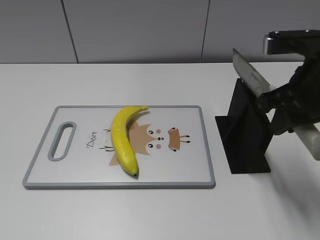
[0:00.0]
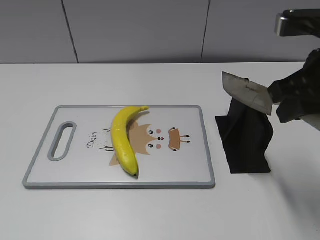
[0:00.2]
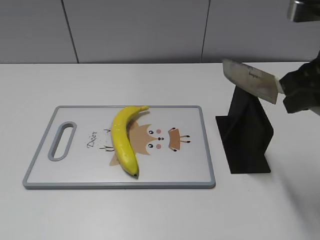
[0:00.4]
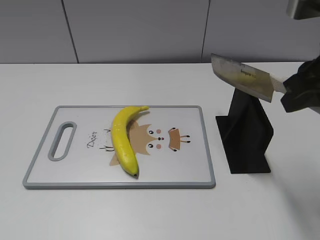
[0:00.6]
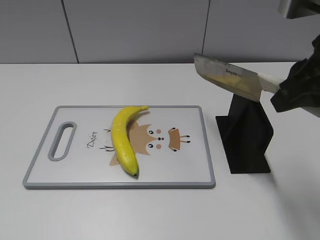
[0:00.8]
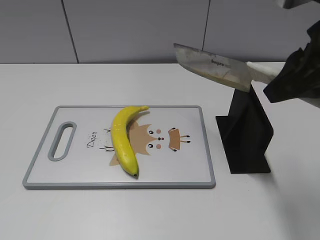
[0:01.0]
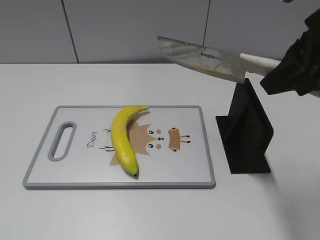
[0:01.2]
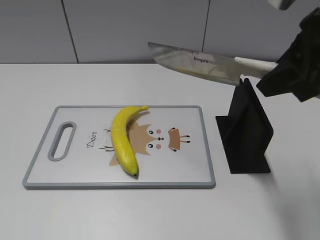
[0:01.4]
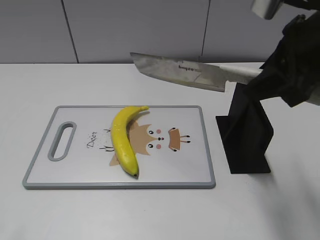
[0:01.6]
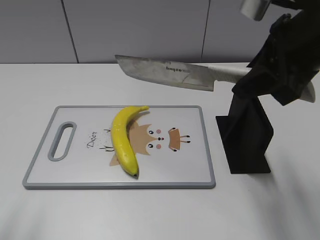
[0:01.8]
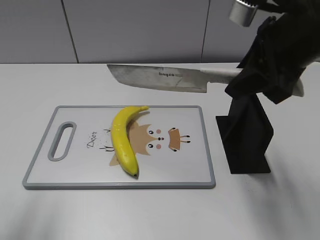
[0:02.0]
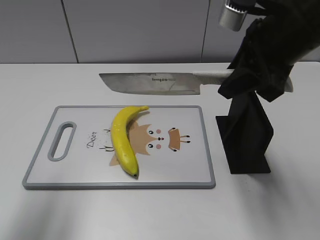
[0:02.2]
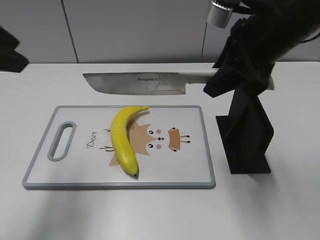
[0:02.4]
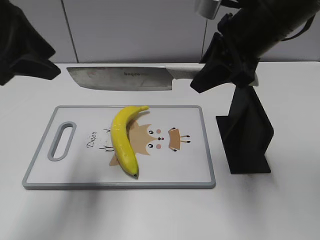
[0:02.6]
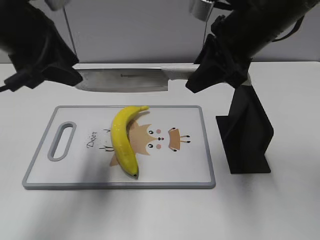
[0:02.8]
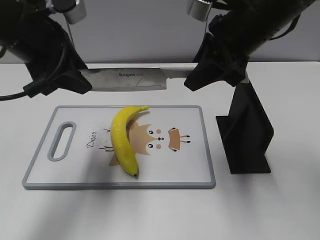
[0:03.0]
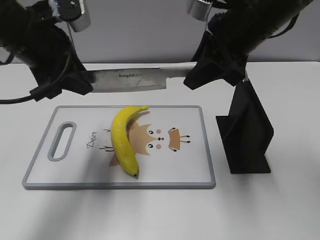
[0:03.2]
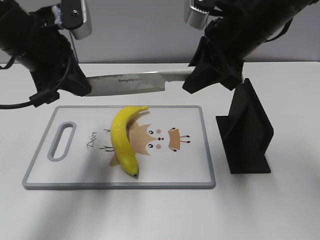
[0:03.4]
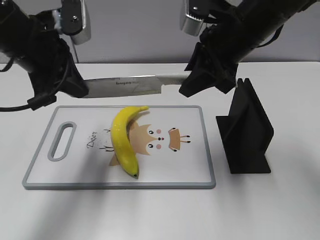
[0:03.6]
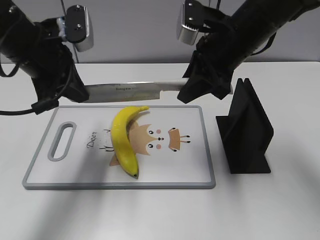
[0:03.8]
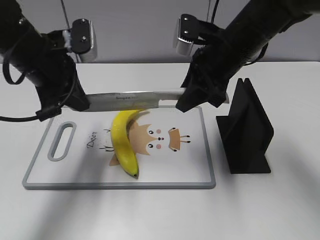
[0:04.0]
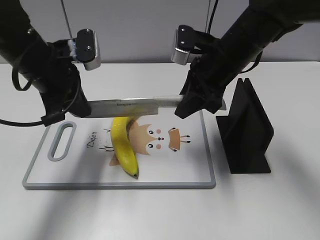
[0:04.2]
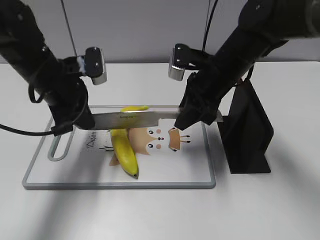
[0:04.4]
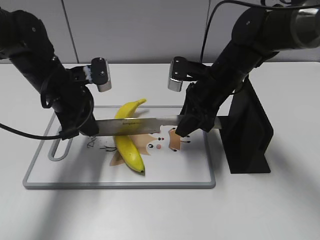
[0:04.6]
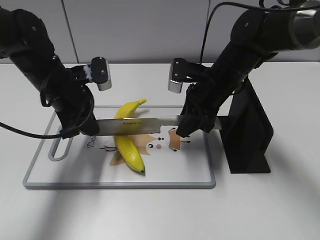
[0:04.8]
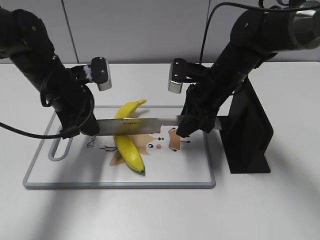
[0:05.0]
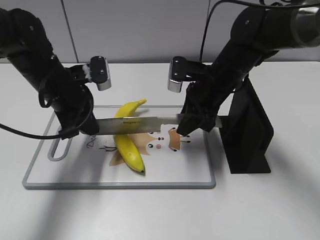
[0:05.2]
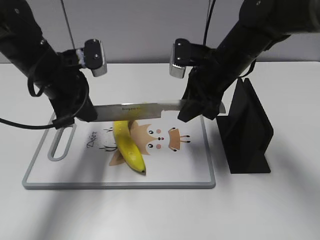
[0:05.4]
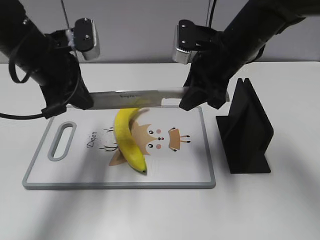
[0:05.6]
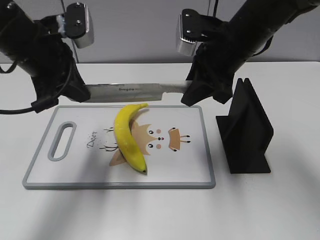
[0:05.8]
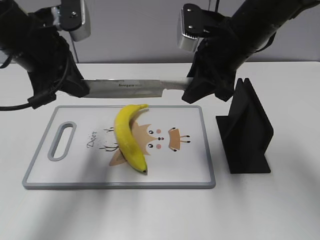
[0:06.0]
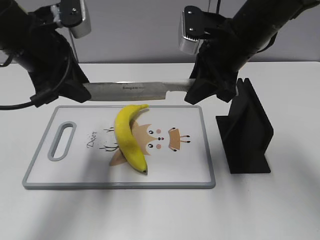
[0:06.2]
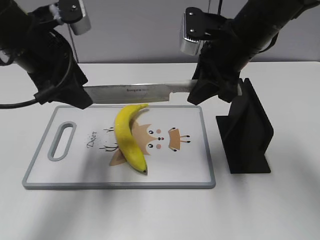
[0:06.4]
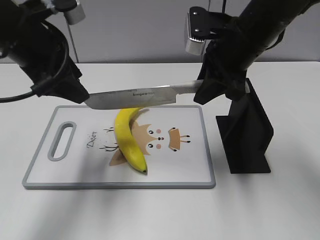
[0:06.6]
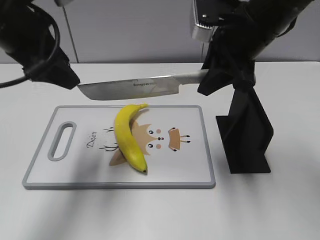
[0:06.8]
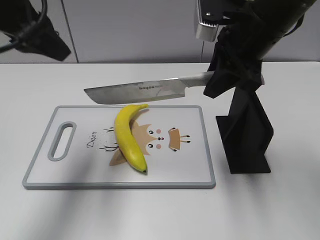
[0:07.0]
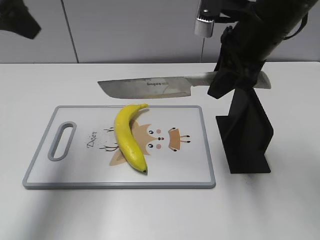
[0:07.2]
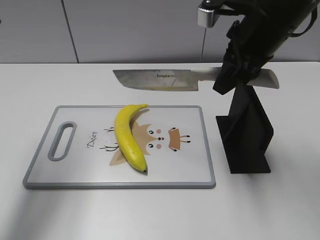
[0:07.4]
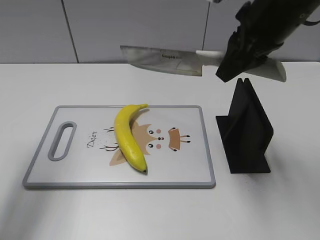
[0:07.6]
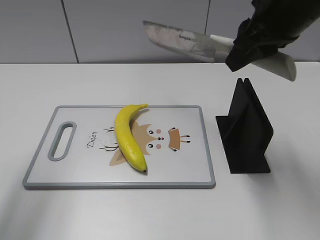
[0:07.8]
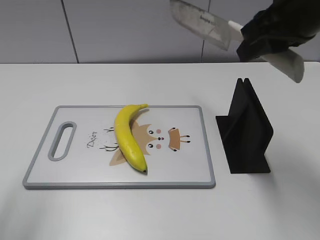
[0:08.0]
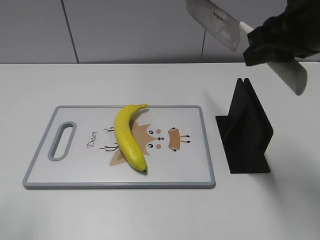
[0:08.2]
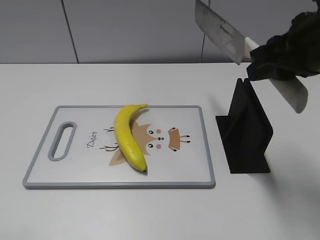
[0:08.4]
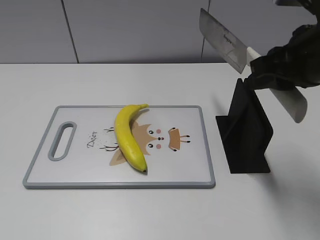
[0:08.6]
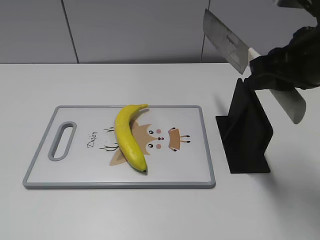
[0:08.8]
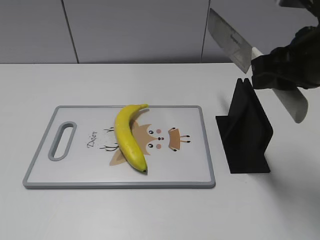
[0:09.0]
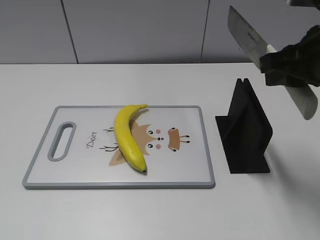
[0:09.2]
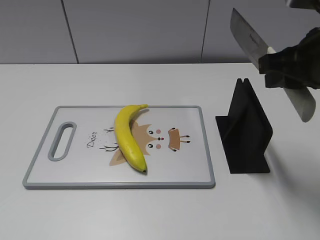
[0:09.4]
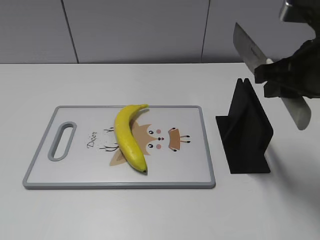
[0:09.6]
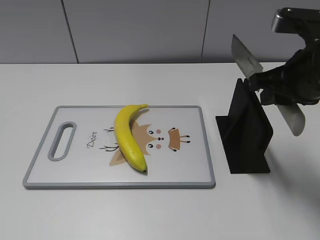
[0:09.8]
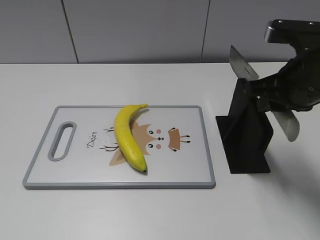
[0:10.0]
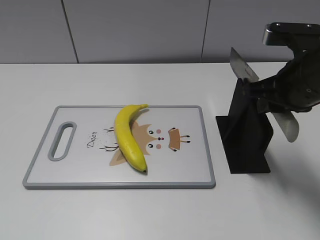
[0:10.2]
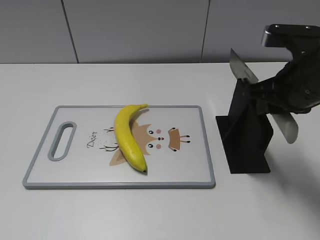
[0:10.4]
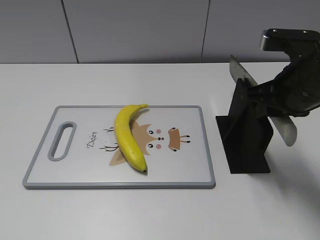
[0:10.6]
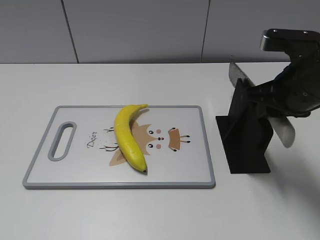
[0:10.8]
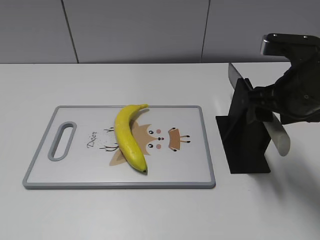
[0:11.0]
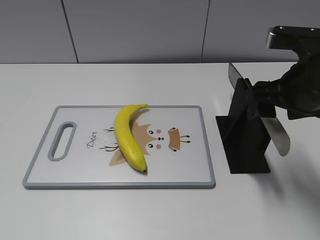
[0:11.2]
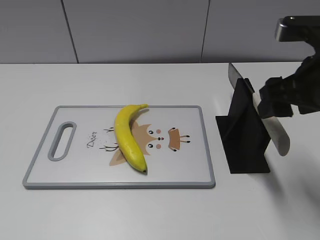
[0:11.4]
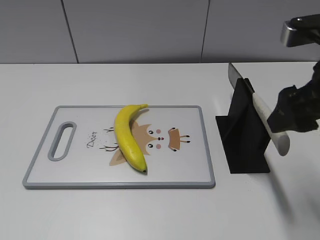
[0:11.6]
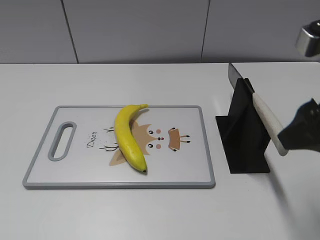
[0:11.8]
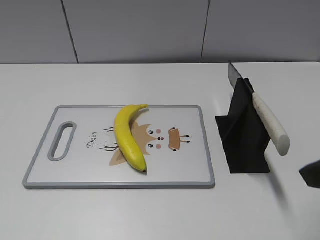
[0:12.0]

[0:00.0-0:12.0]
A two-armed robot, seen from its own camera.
Task of the whole recording: cut plastic banana.
Step, 1.0 to 5.4 s: Lift the knife with your right hand.
Step, 5.6 to 7.0 s: Cut the banana with your right hand.
Step, 7.2 to 8.8 s: Secure the blade with your left hand.
0.0 to 1.6 s: The left gripper moves forward, some 5 cm. Meanwhile the right gripper travels upward by some 5 cm.
1.6 to 3.0 s: The left gripper shifts some 30 cm forward and to the right; the right gripper heads forward and to the left, covering some 10 cm.
3.0 to 4.4 s: Both grippers travel together downward, roughly 10 cm. The left gripper closes up.
4.4 to 6.0 s: Both grippers move upward, about 5 cm.
6.0 to 7.6 s: The left gripper shifts about 20 cm upward, to the left and backward, and opens. The right gripper is displaced upward by roughly 5 cm.
7.6 to 9.0 s: The left gripper moves backward and downward, approximately 30 cm; the right gripper shifts approximately 5 cm backward.
9.0 to 10.4 s: The right gripper is displaced downward by about 5 cm.
10.4 to 12.0 s: The right gripper is displaced backward by roughly 10 cm, and opens.

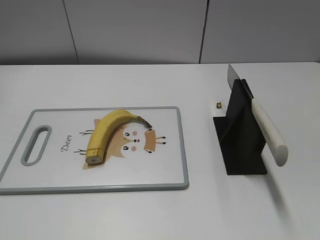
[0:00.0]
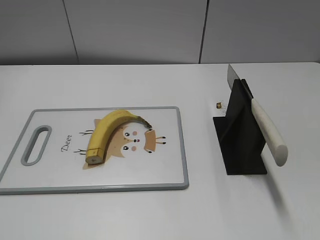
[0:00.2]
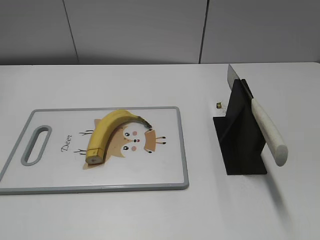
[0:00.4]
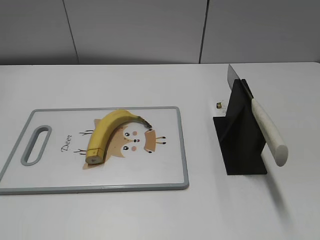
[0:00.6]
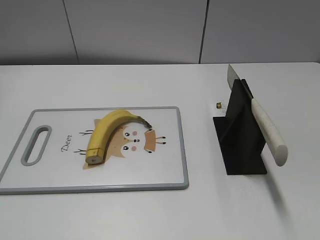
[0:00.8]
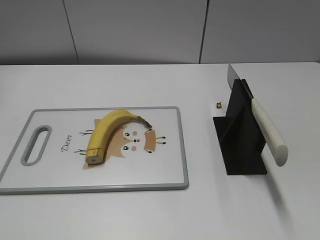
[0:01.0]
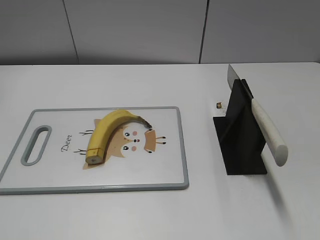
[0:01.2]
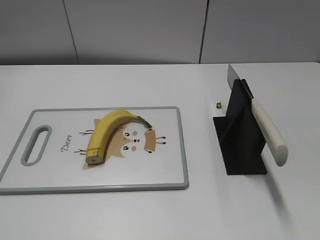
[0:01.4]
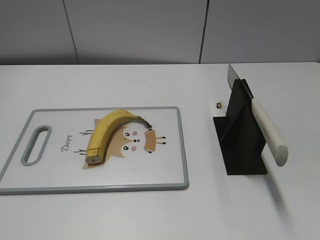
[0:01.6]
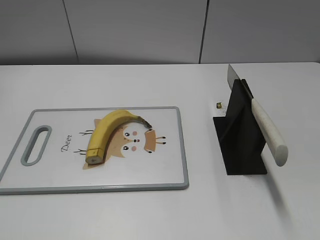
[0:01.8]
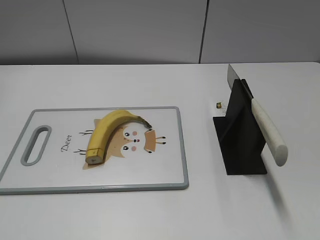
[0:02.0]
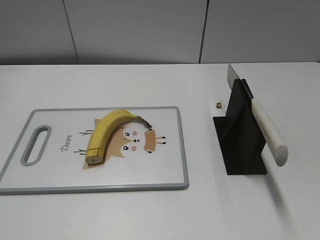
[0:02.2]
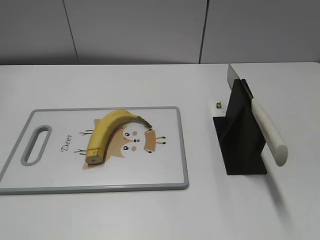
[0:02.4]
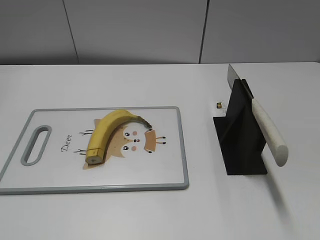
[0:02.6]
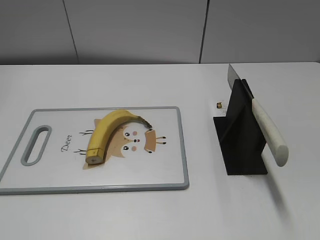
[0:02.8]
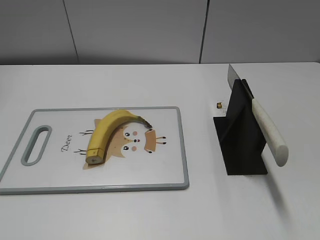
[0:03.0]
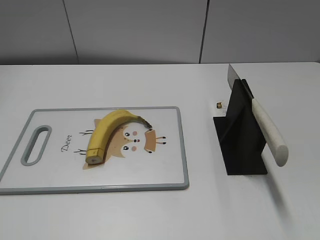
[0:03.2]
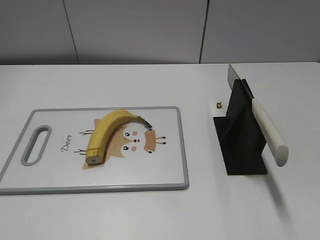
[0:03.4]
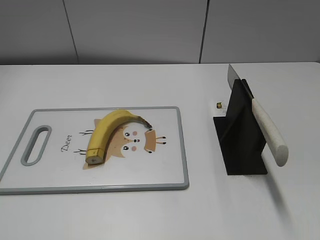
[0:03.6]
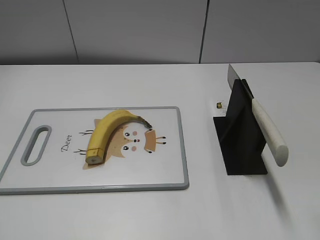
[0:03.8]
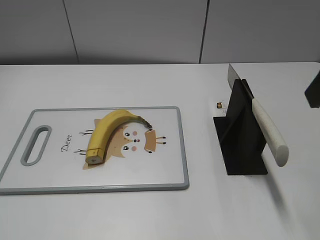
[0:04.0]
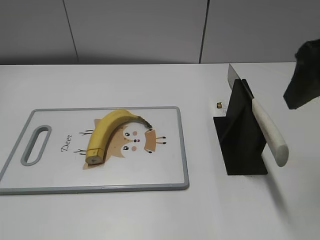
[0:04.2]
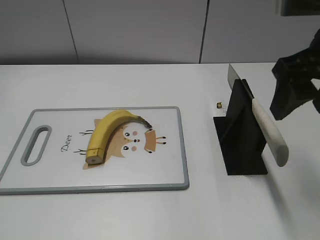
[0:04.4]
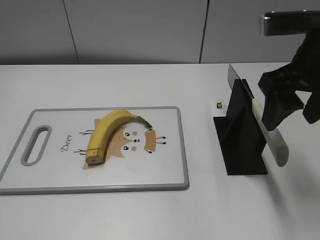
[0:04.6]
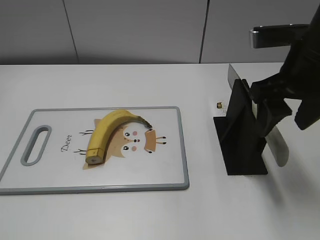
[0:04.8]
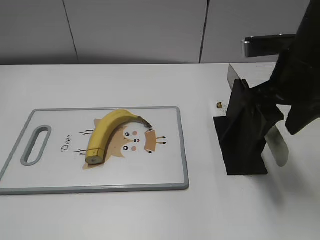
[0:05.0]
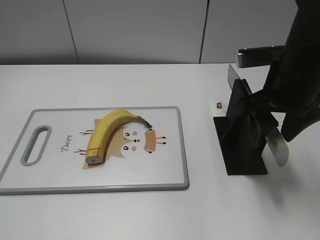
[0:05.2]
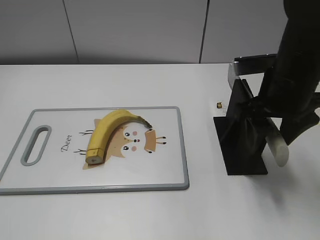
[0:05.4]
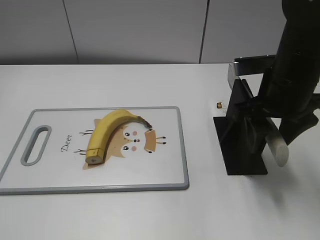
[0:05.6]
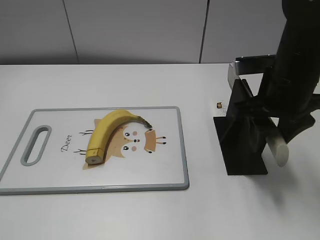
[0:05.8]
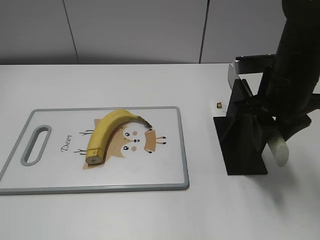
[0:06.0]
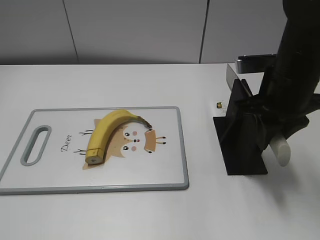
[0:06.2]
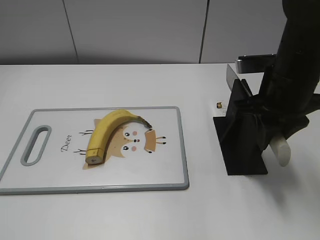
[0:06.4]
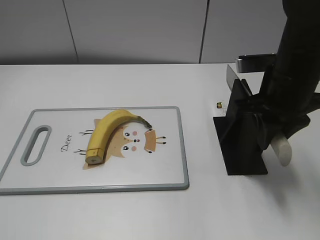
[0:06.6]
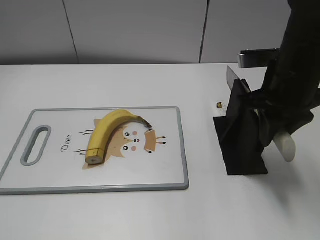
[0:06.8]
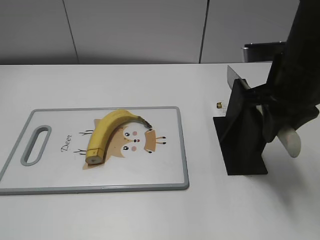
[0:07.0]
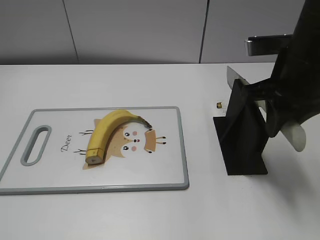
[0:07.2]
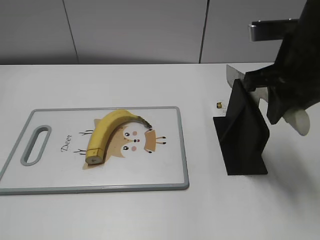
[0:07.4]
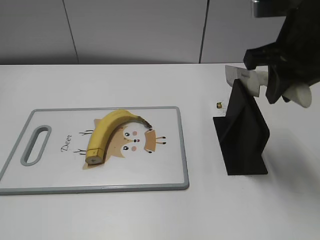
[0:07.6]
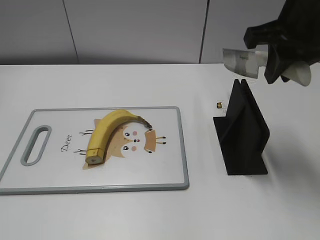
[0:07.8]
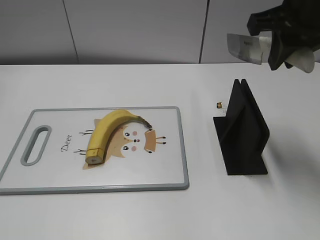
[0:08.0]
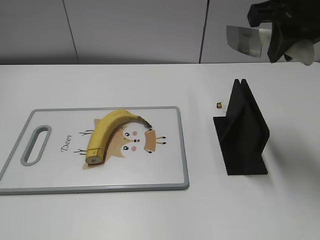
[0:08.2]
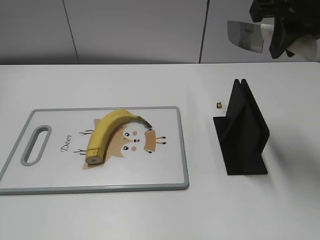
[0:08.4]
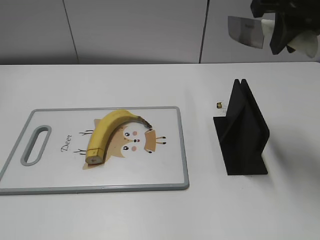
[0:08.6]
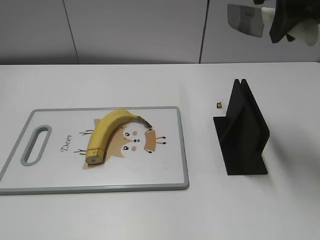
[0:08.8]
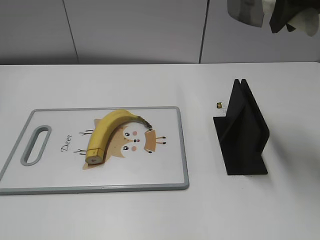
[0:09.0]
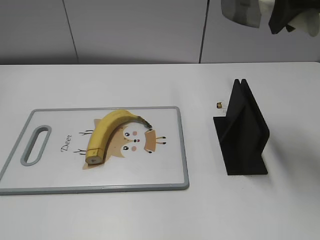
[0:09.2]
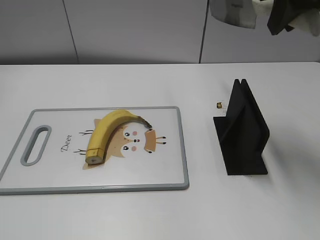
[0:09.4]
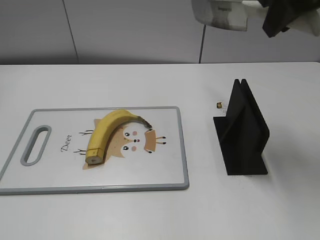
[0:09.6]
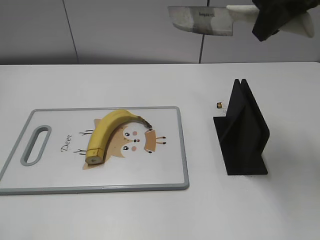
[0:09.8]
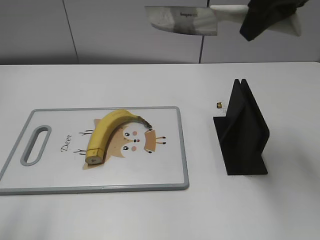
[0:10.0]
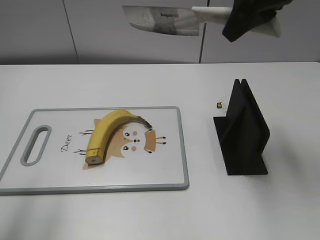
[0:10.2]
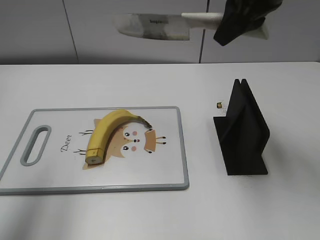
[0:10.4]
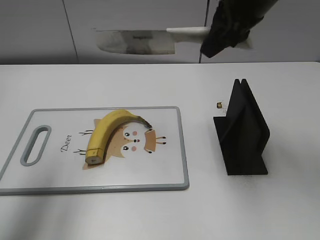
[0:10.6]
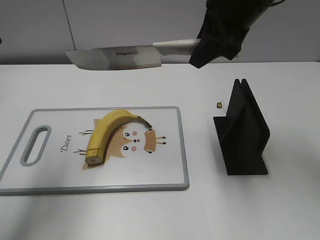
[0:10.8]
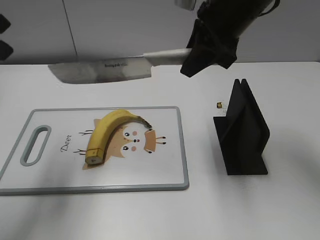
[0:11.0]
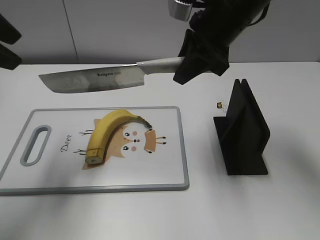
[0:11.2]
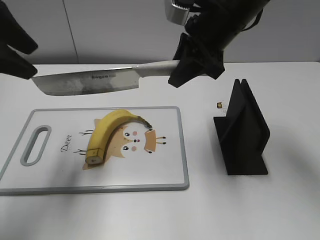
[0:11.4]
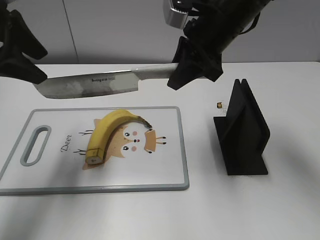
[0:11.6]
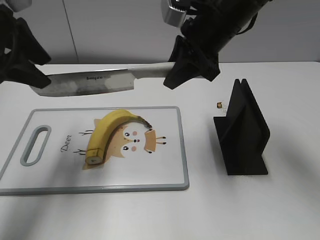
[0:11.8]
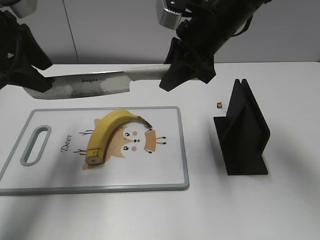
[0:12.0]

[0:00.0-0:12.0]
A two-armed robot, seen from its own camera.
Task of the whole recording: cut banana.
Step, 0.0 to 7.6 s: Grab the knife handle with your right hand.
3.0 to 4.4 s: The right gripper shifts roughly 20 cm forward and to the left.
4.4 to 6.0 s: The right gripper travels downward and forward by some 10 cm, and closes up.
6.0 to 7.6 s: The right gripper moves upward, roughly 5 cm, and closes its fingers.
7.6 to 9.0 s: The right gripper goes about 10 cm upward.
9.0 to 10.4 s: The right gripper moves some 5 cm. Meanwhile the left gripper travels forward and upward by roughly 25 cm.
10.4 to 12.0 s: The left gripper travels forward and downward by roughly 15 cm. Meanwhile the right gripper goes some 10 cm downward and to the left.
